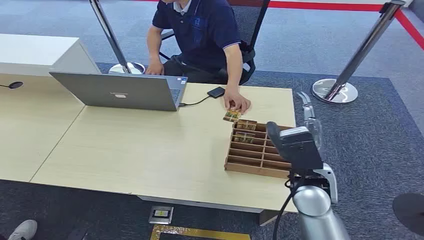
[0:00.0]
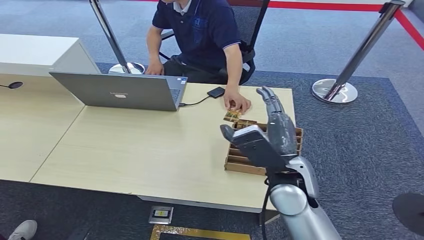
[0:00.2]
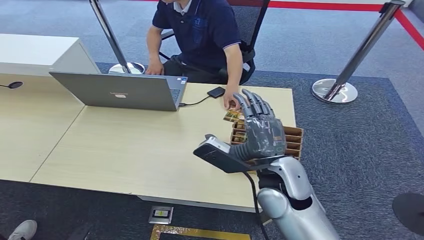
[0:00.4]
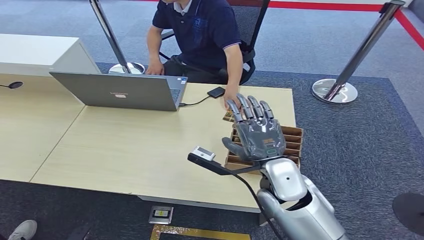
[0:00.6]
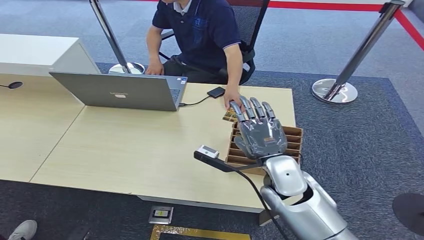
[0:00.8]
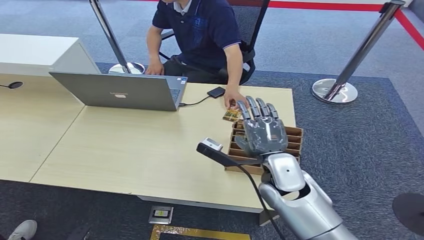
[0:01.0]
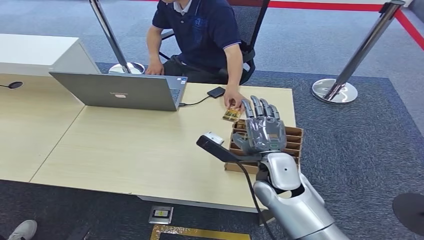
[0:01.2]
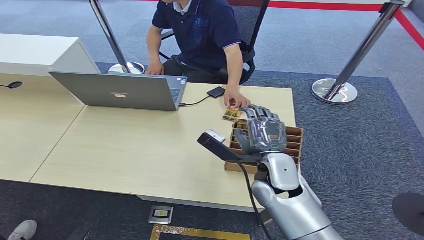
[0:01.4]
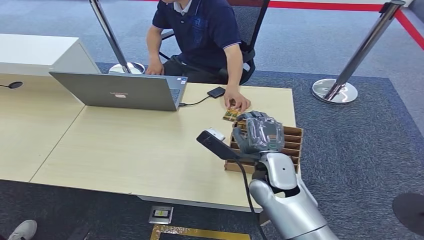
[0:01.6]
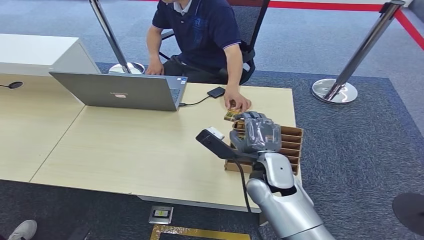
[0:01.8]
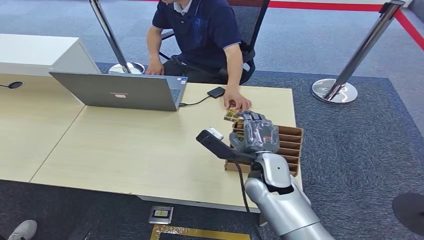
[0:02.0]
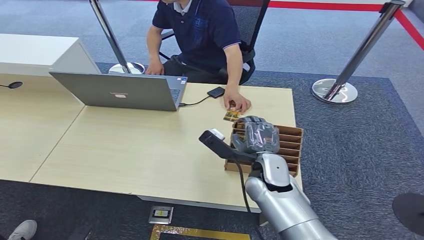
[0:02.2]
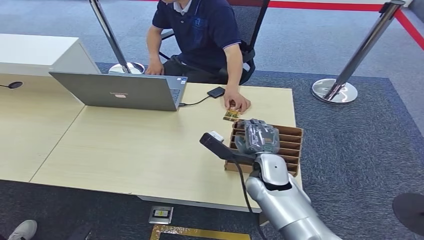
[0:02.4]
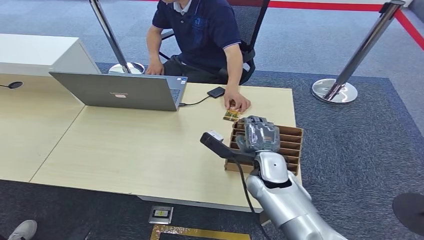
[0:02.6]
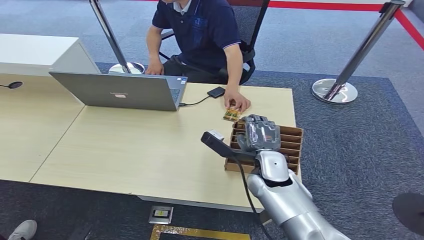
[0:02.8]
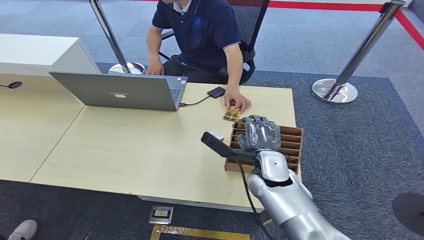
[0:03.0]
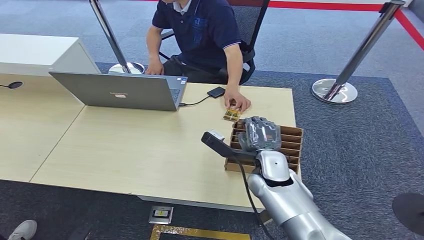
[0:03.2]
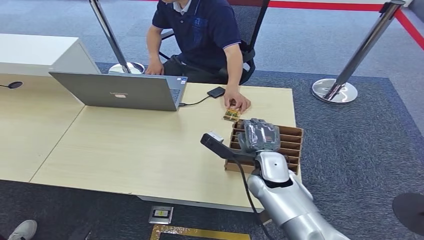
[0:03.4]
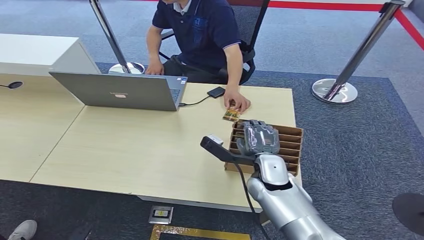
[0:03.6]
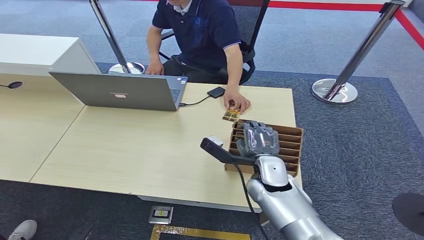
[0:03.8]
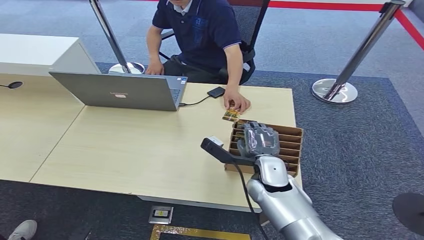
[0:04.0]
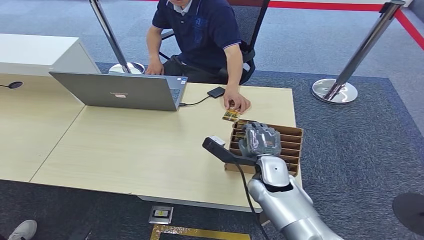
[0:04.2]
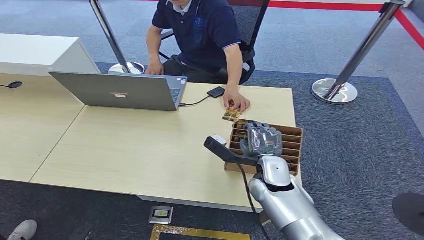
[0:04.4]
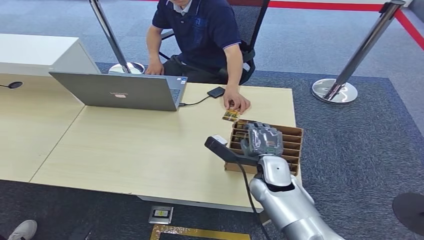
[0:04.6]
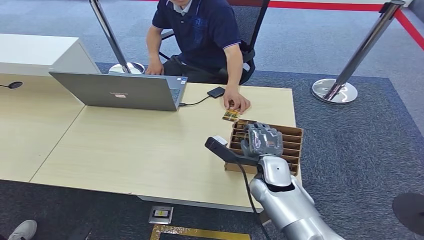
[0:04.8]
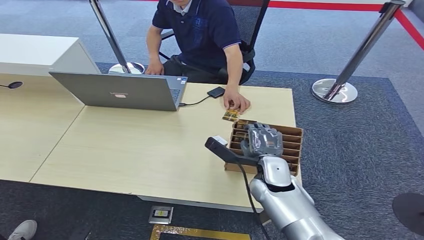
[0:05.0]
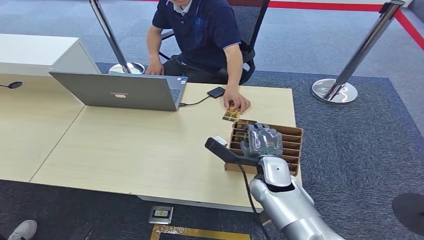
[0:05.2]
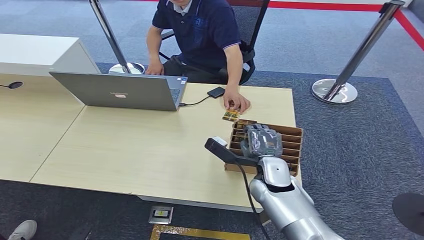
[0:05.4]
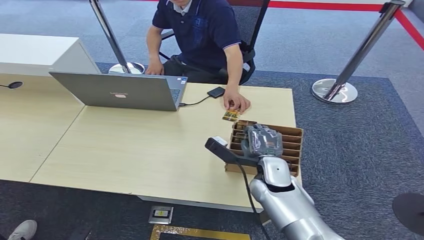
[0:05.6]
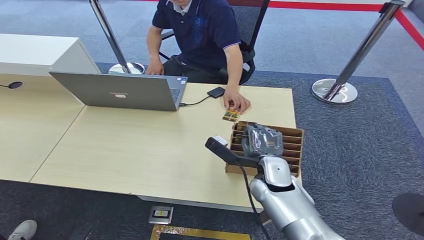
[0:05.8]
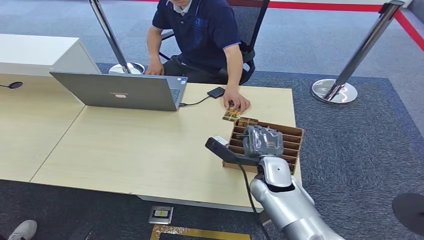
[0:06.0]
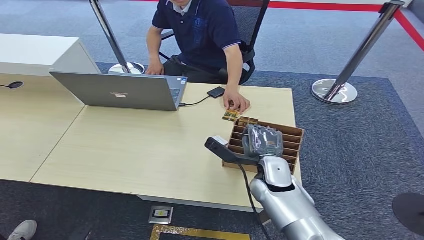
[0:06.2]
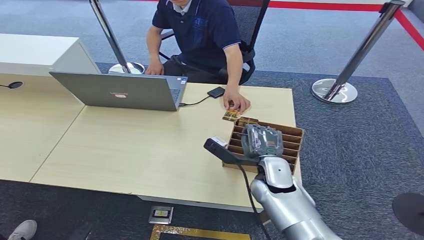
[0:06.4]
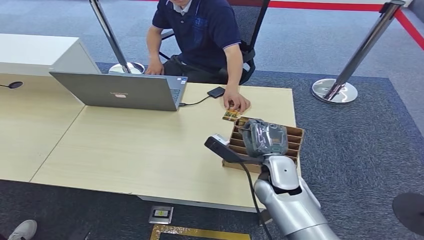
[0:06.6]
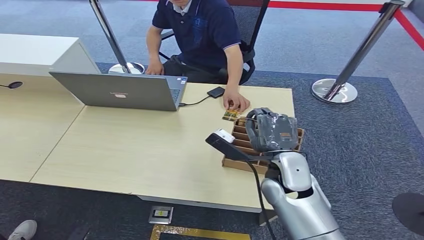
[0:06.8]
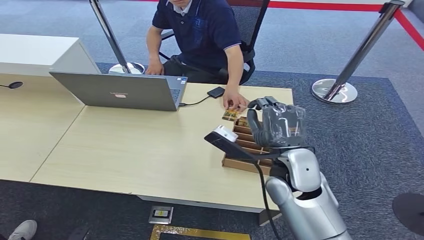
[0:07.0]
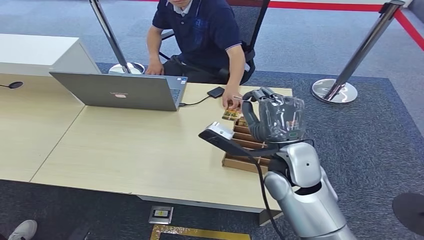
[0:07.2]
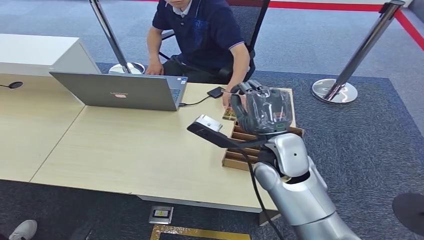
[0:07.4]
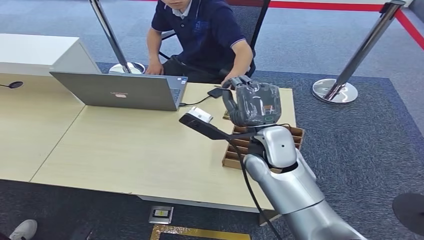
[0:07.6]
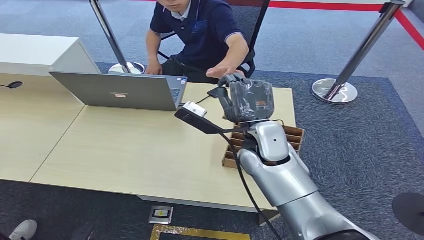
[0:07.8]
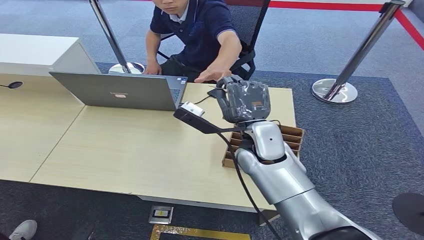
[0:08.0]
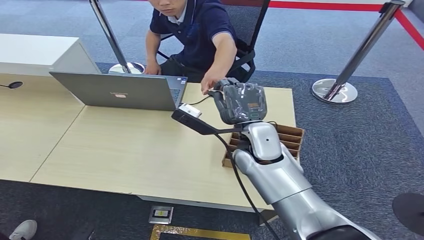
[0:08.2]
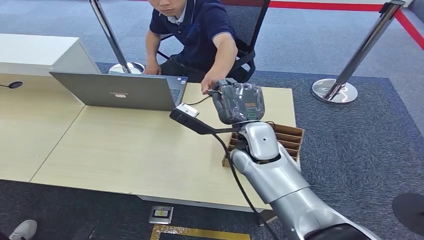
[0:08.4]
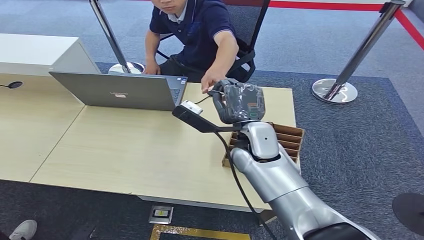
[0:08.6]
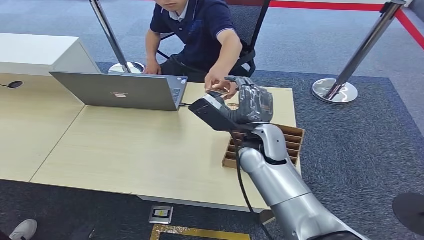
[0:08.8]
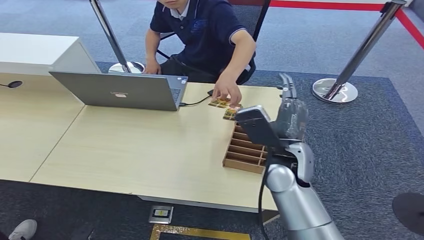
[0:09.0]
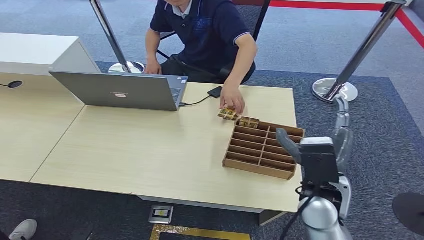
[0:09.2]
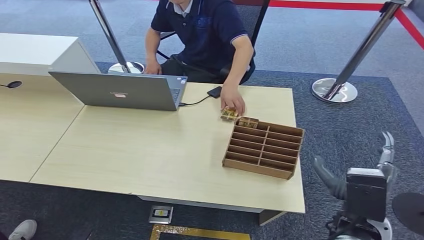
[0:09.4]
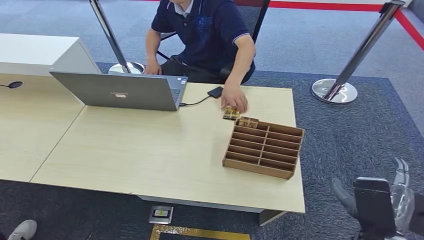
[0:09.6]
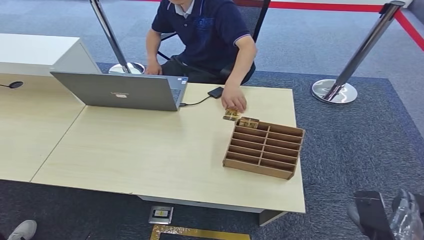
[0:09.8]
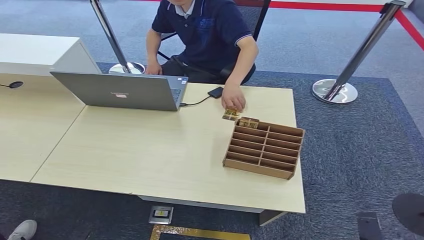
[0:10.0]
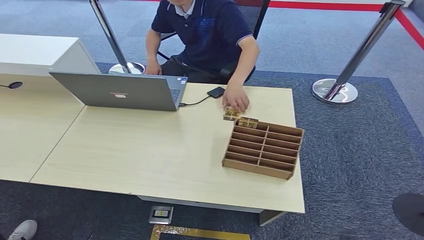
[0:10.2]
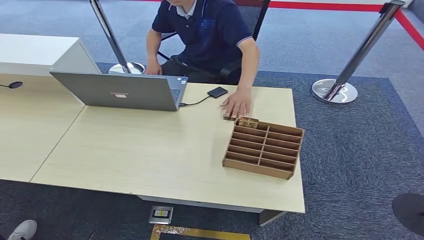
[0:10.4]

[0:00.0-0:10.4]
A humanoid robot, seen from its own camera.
Step, 0:00.0 to 0:06.6: Pick up the room card from the card holder.
Step, 0:06.8 to 0:10.4: Hand the room card to the target.
0:01.4 to 0:04.4: The hands make only small movements.
0:04.4 to 0:06.0: Neither hand changes place.
0:06.0 to 0:07.4: The right hand shifts approximately 15 cm upward.
0:09.0 to 0:10.4: The right hand moves backward, downward and to the right, roughly 40 cm.

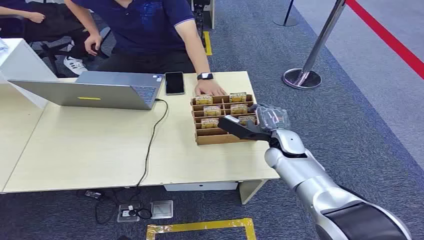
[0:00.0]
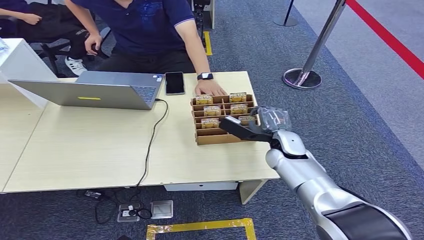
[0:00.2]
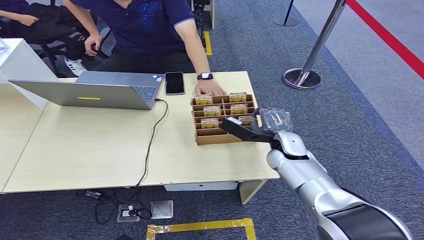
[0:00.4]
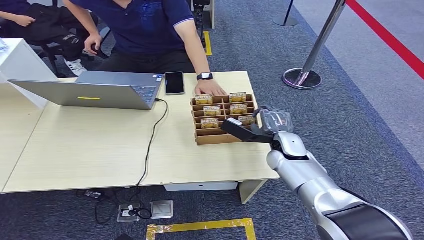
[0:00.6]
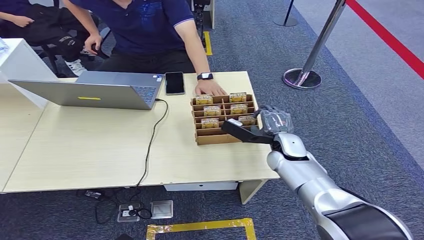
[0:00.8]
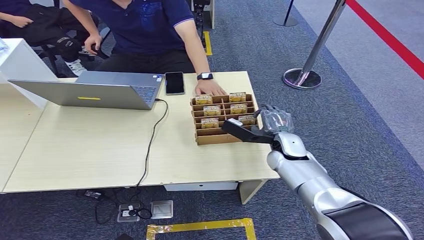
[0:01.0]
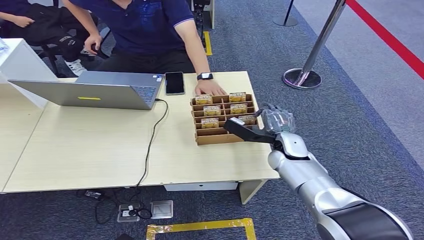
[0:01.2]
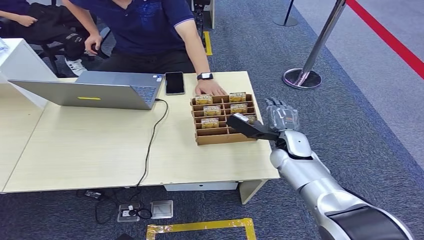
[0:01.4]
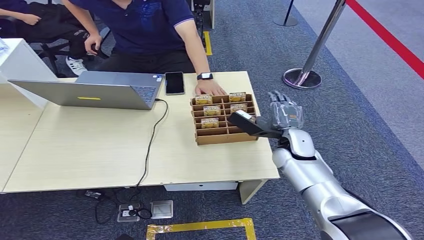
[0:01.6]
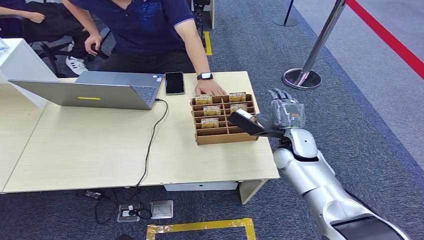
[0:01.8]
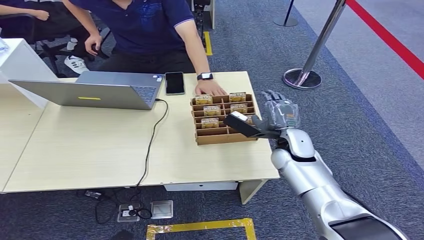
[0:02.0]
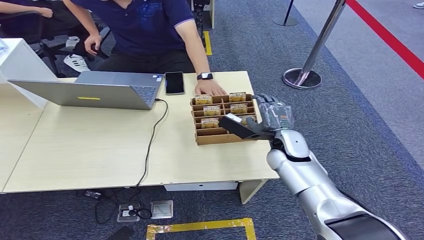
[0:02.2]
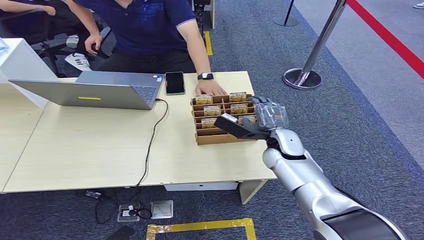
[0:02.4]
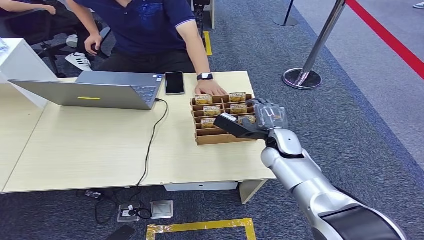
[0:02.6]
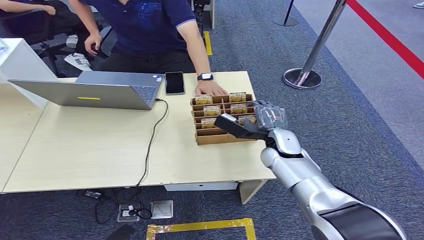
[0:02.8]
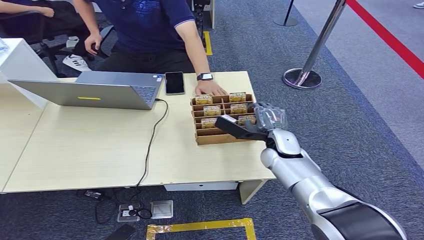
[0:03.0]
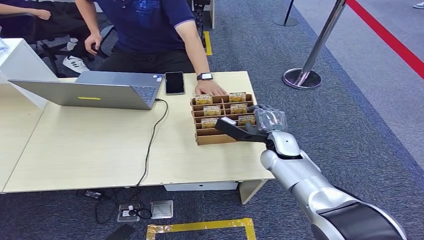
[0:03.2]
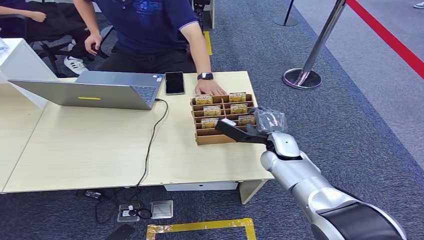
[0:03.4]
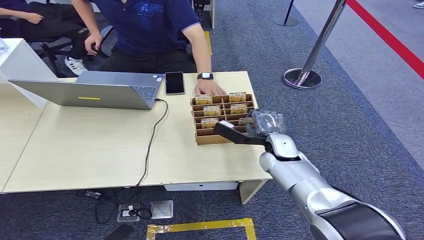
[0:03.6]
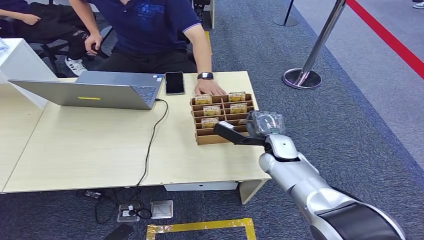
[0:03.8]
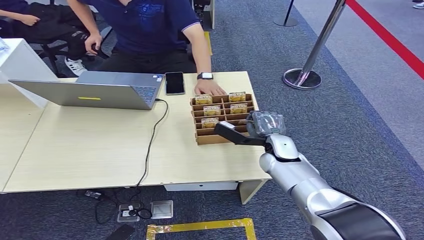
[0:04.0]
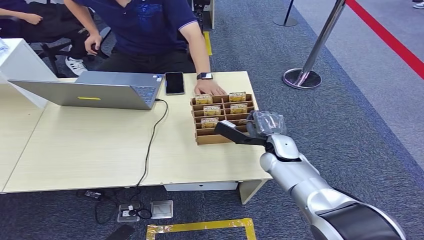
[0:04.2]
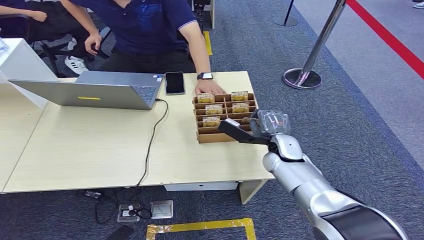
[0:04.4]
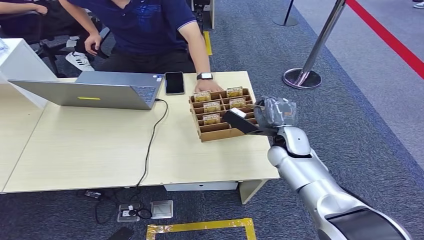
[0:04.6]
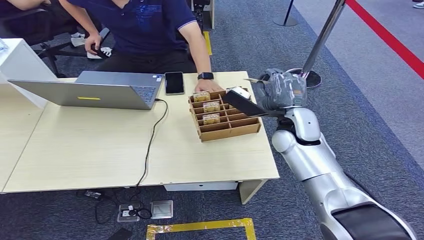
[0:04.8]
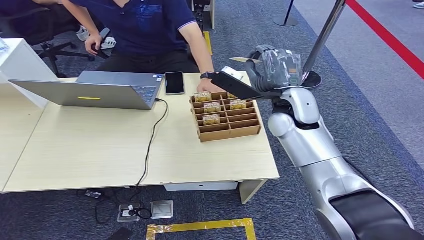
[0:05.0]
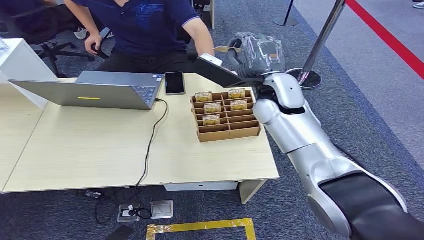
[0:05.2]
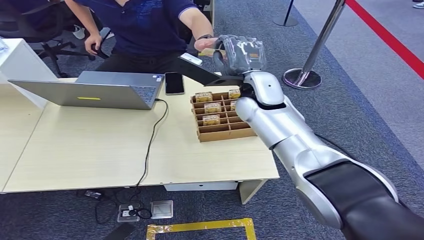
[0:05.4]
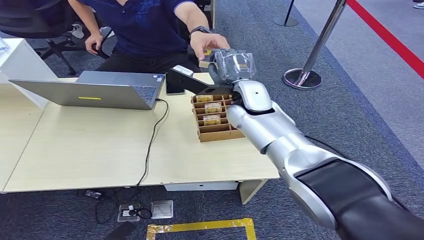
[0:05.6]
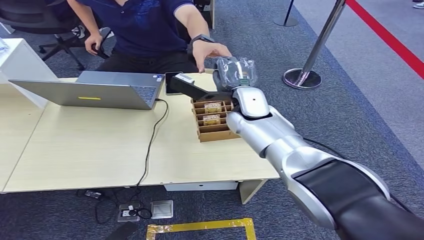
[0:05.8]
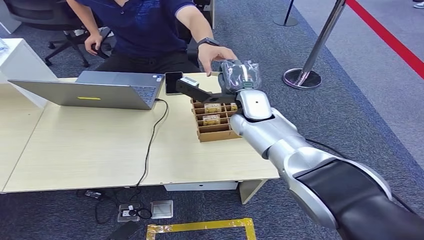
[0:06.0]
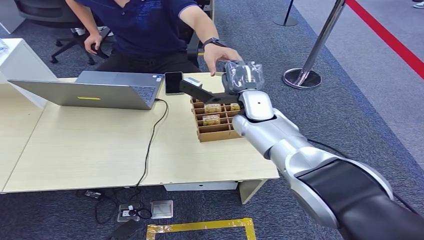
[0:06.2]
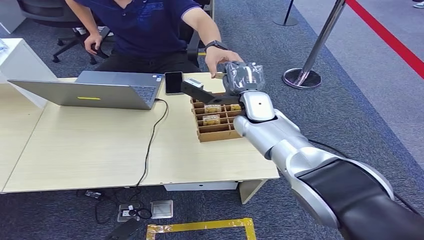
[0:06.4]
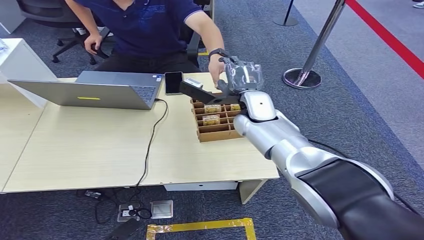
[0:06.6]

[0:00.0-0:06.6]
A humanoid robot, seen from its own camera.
Step, 0:00.0 to 0:04.2: Pick up the room card from the card holder.
Step, 0:04.4 to 0:06.6: Hand the room card to the target.
0:01.6 to 0:03.2: The hands make only small movements.
0:03.2 to 0:05.0: The right hand is displaced upward by about 15 cm.
0:05.0 to 0:06.6: The right hand shifts approximately 5 cm to the left.
